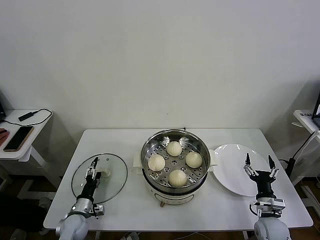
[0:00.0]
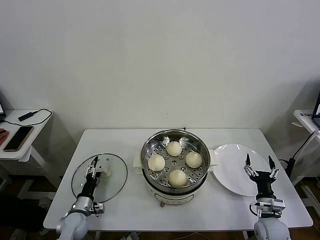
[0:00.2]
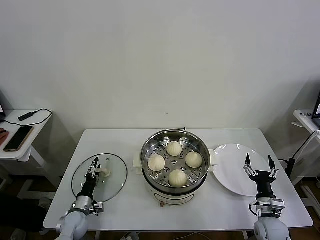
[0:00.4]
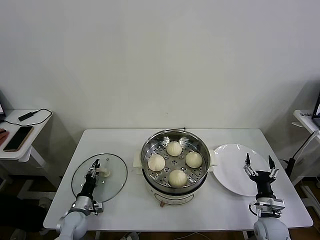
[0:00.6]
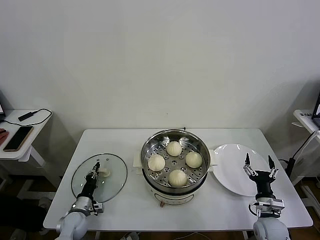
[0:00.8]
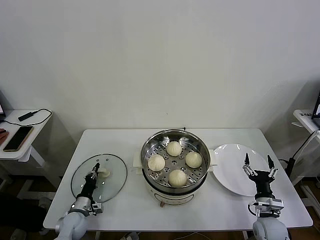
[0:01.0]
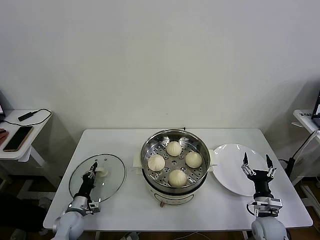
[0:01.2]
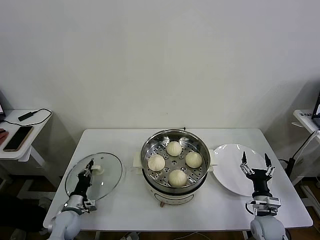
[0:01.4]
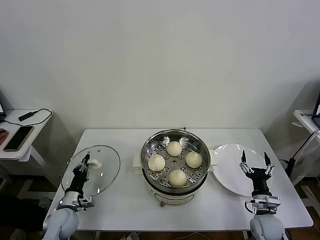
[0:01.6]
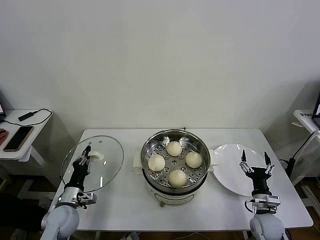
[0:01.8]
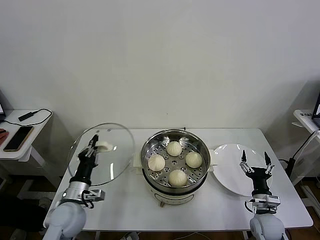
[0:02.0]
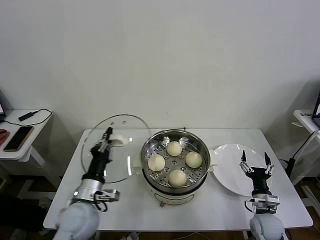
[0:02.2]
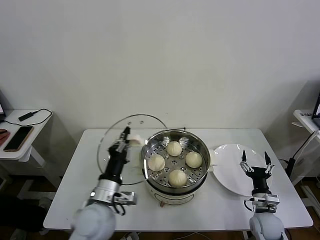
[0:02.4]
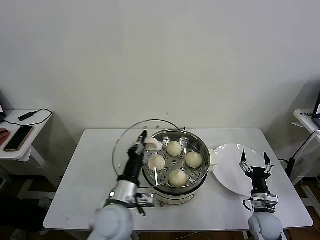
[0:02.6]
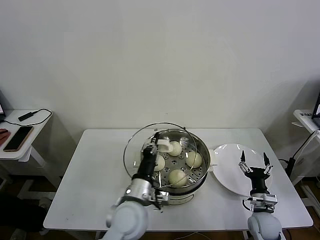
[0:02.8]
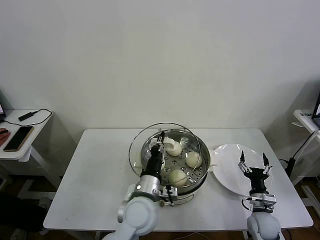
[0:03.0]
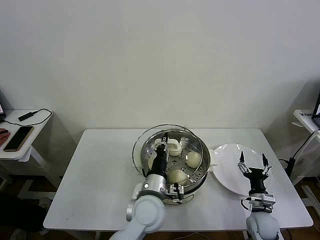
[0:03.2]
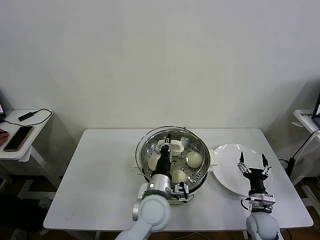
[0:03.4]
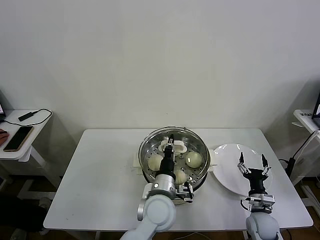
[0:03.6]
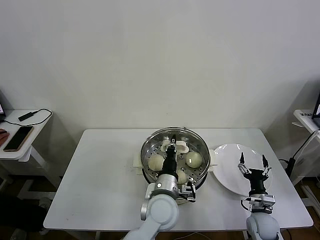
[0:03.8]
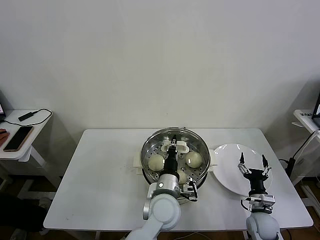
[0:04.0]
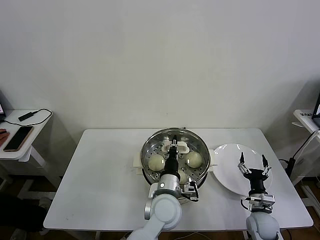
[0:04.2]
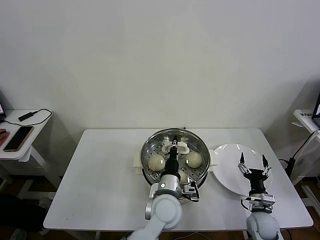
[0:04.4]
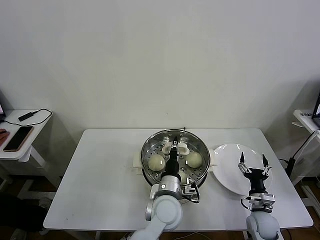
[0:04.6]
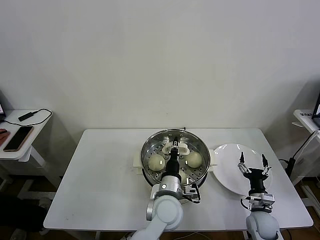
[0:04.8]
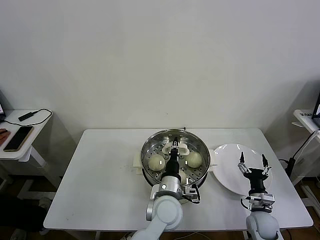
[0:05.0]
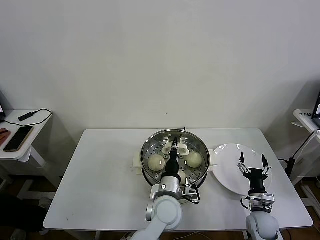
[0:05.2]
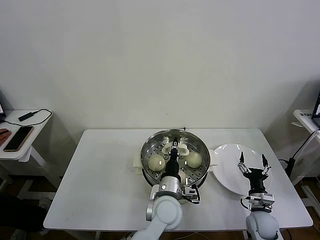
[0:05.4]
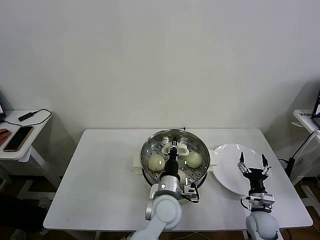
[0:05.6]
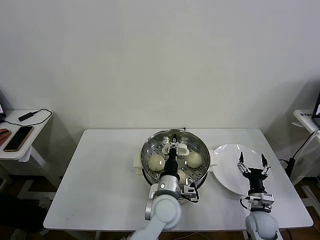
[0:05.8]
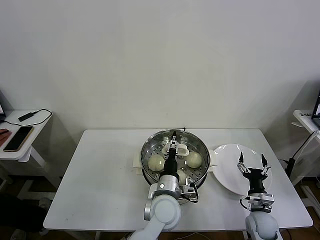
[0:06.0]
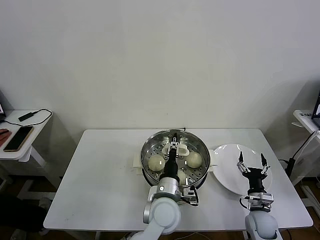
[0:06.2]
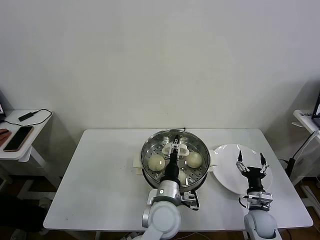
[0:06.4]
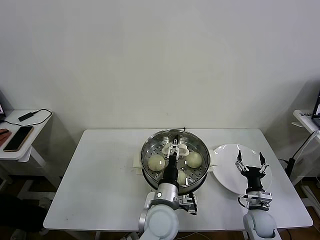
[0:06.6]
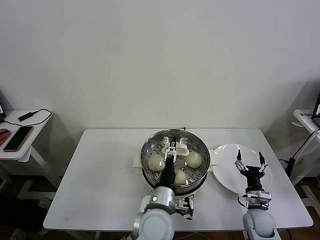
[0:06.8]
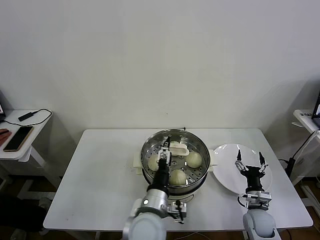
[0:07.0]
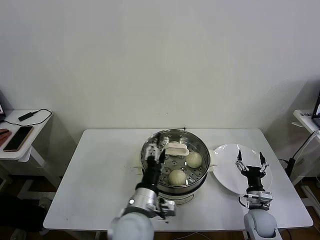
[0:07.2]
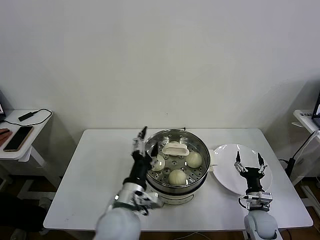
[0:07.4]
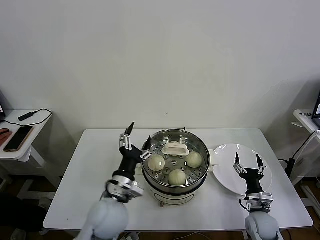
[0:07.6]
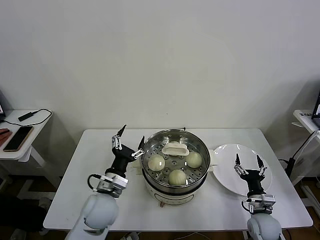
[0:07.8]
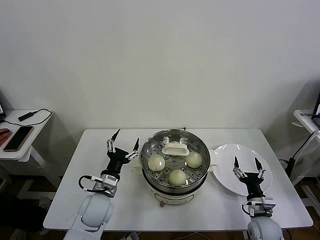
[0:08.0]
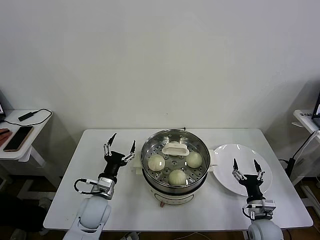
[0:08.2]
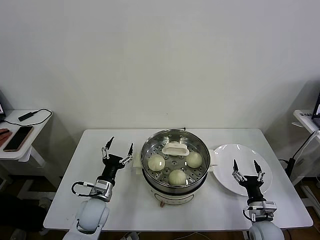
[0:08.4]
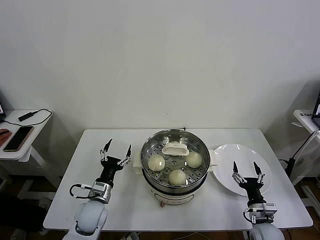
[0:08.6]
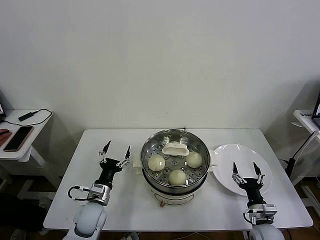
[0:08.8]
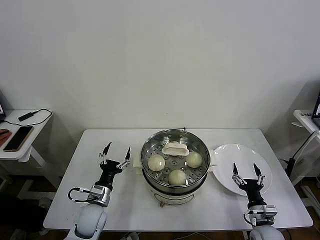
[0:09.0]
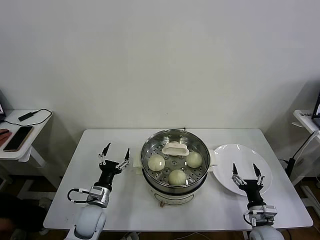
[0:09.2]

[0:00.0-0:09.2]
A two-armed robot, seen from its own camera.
Task of the whole recording: take steamed baozi put them in steamer then cover it.
Step, 0:01.0 to 0:05.8: Place the pot lid on the steamer with left gripper.
0:00.0 to 0:01.6: The left gripper closes its fingers.
0:01.6 to 0:03.0: The left gripper moves to the right and upward, roughly 35 cm.
0:03.0 to 0:04.6: The left gripper travels to the right by about 10 cm.
0:04.6 to 0:06.2: The left gripper opens up.
0:06.2 to 0:07.6: The left gripper heads to the left and upward, covering approximately 15 cm, and opens up.
0:07.6 to 0:09.2: The left gripper goes roughly 20 cm downward and to the left.
